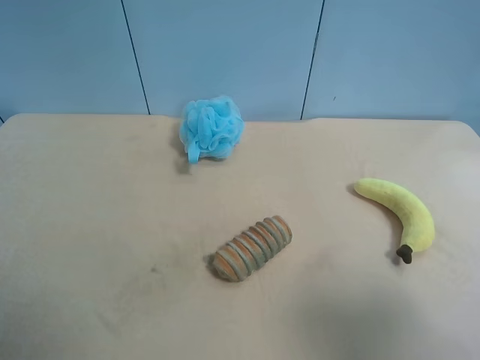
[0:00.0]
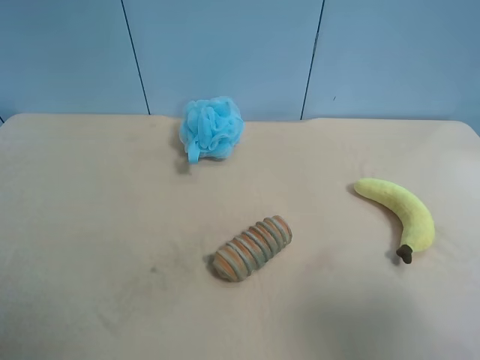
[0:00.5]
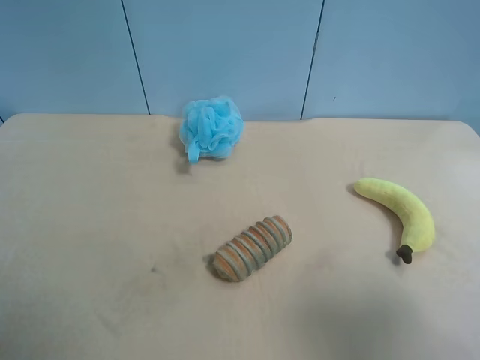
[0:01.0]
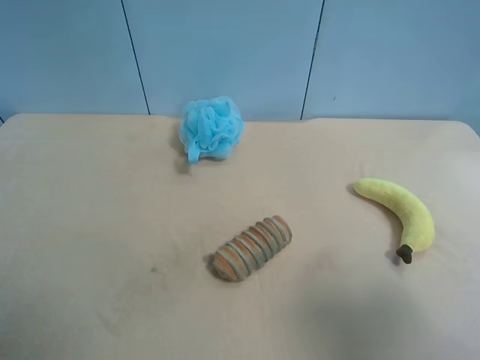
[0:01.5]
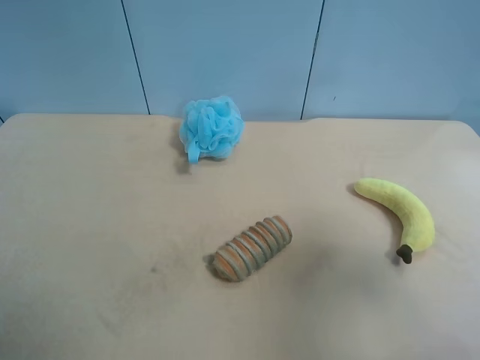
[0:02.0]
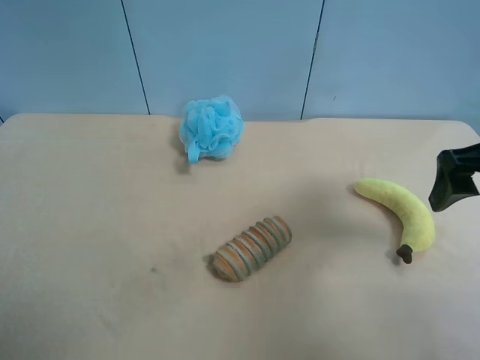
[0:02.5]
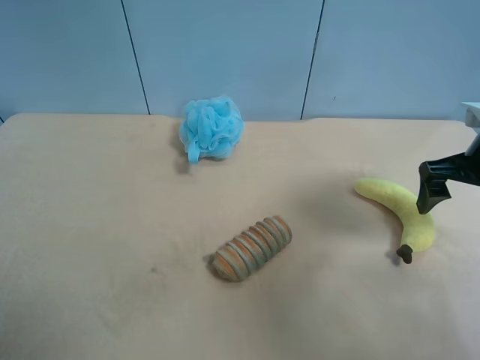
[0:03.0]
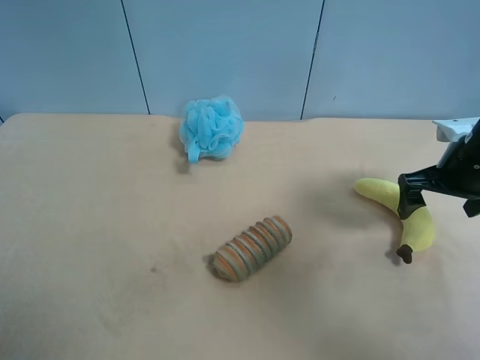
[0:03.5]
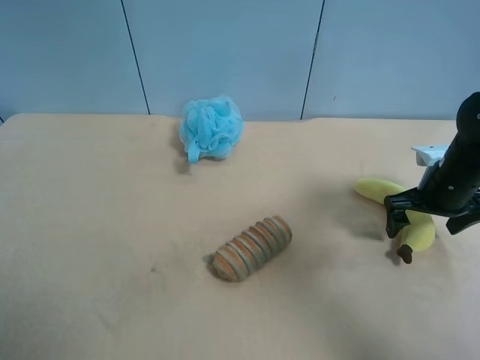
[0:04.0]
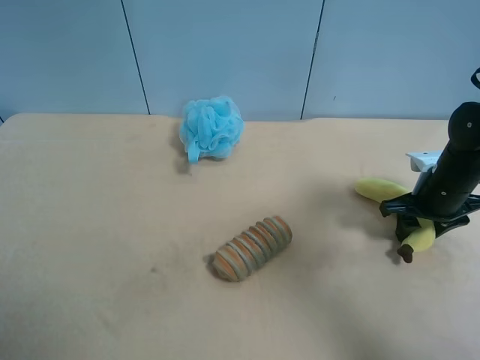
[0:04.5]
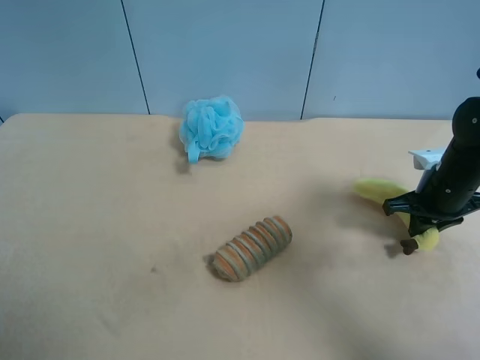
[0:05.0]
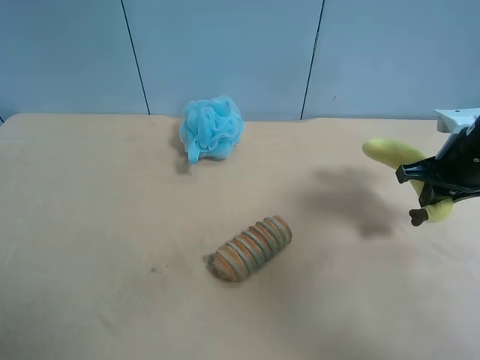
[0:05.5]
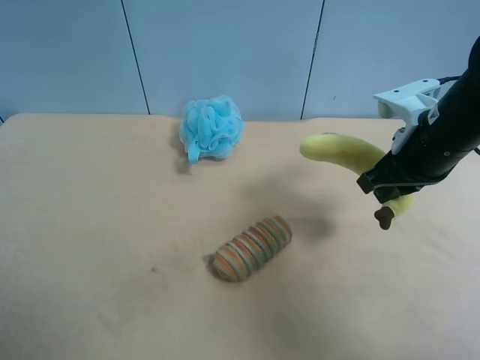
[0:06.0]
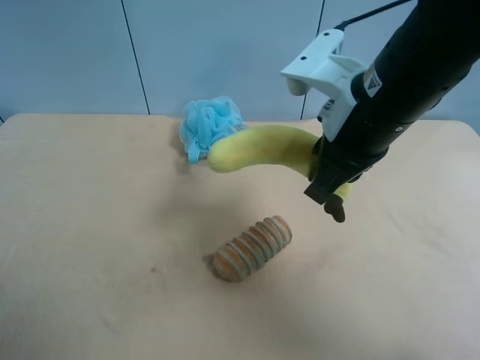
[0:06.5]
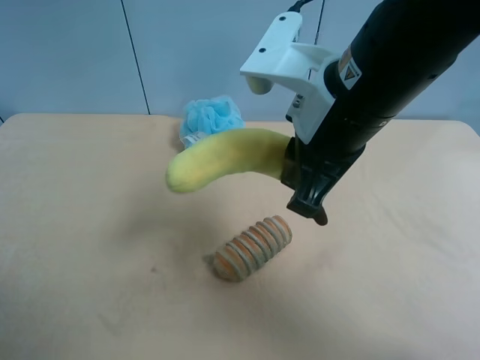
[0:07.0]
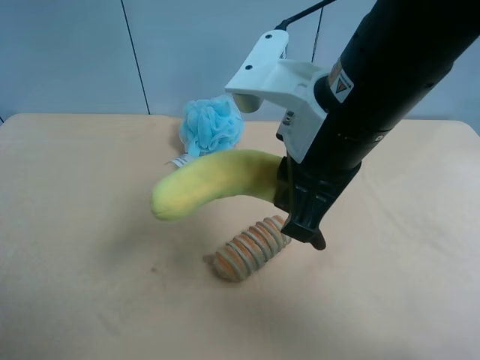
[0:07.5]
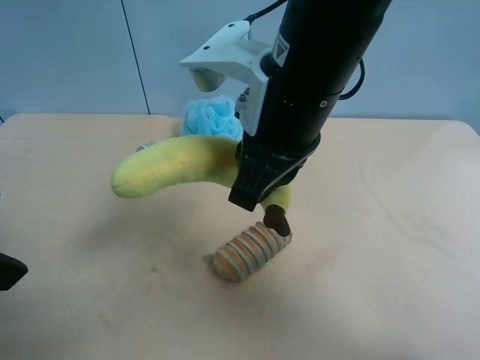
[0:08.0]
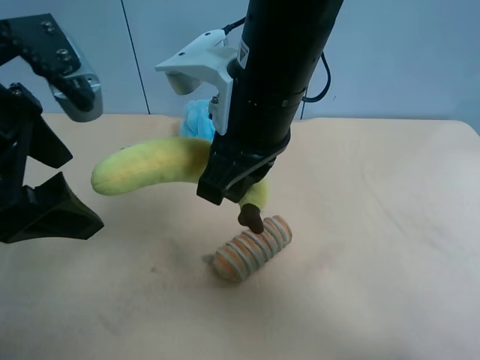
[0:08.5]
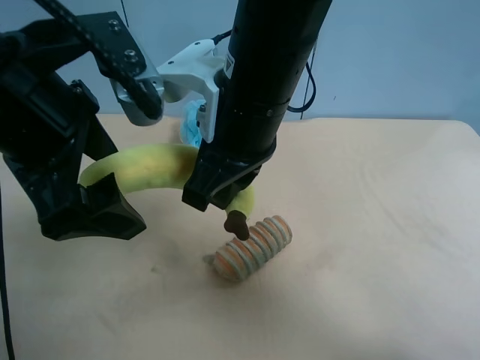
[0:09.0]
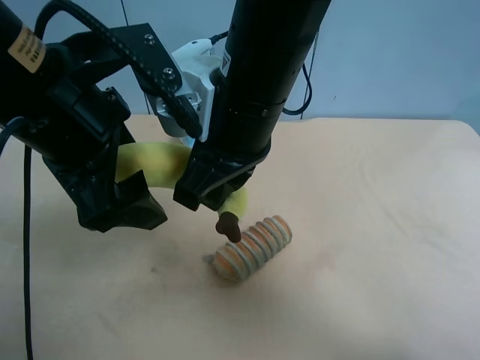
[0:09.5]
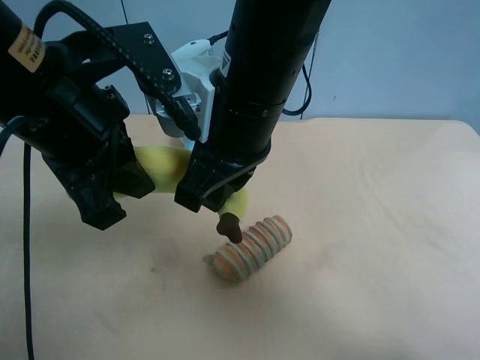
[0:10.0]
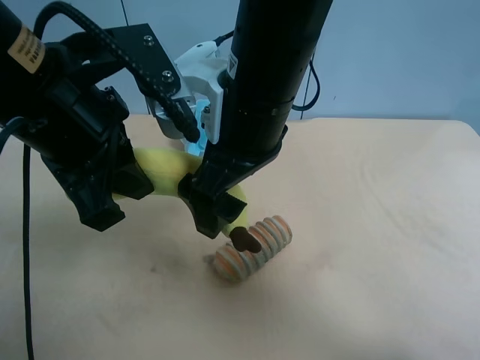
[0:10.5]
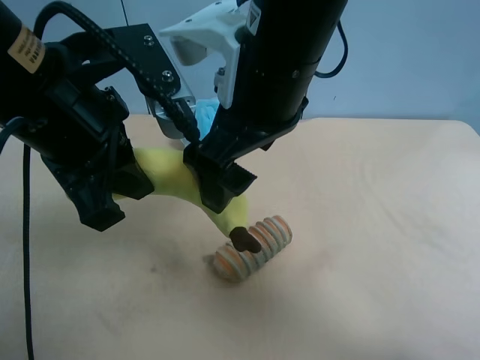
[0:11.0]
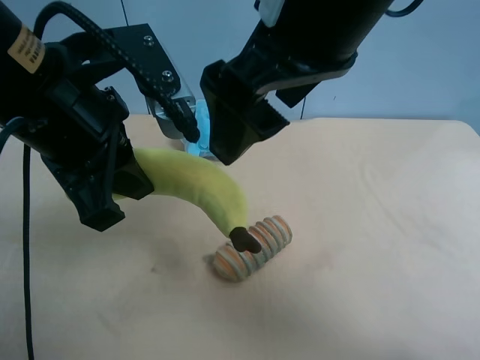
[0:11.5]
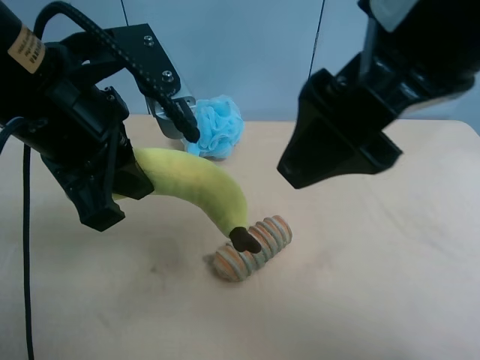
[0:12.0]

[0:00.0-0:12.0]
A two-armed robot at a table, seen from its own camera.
Task of the whole recording: use the right gripper to pick up the item and transfer it from the right gripper to the left gripper.
0:00.0 to 0:02.0: The right gripper moves forward, about 10 cm.
0:02.0 to 0:04.0: The right gripper heads forward and downward, covering about 30 cm.
0:04.0 to 0:06.0: The right gripper moves upward and to the left, roughly 15 cm, and closes its fingers.
0:06.0 to 0:08.0: The left gripper moves forward and to the right, approximately 15 cm. The right gripper goes some 20 cm to the left and upward.
0:08.0 to 0:10.0: The left gripper moves to the right and forward, some 15 cm, and closes.
0:10.0 to 0:12.0: The right gripper travels to the right, upward and backward by some 15 cm, and opens up.

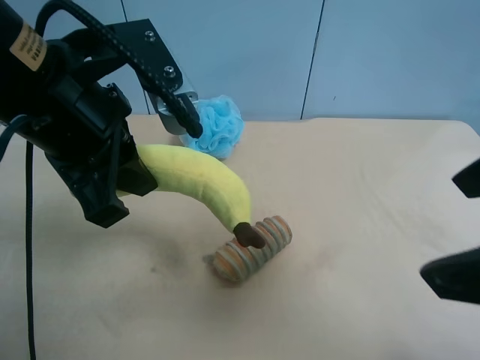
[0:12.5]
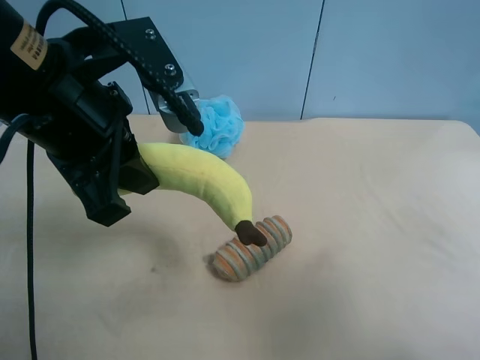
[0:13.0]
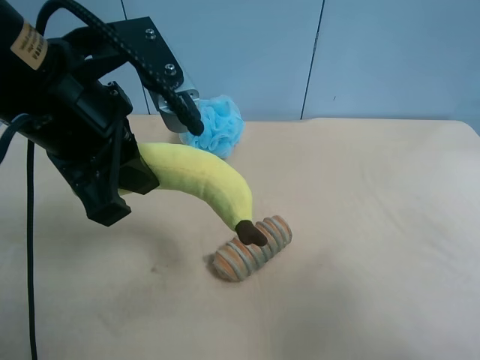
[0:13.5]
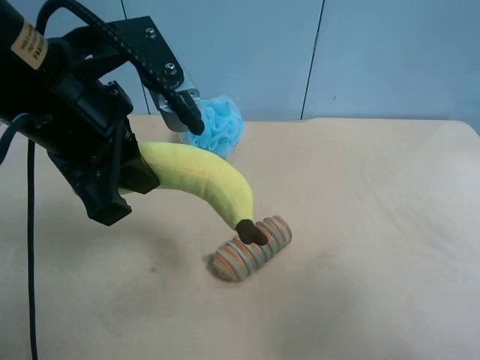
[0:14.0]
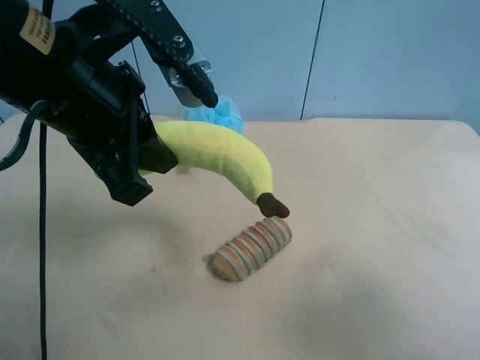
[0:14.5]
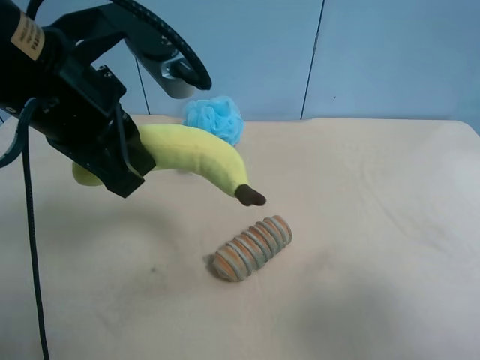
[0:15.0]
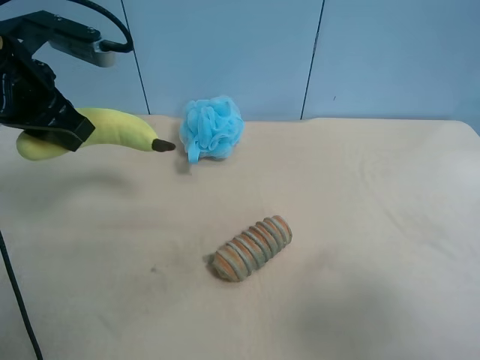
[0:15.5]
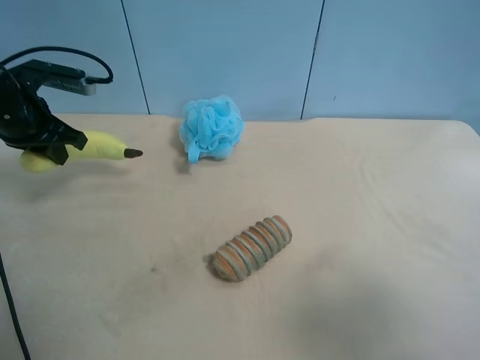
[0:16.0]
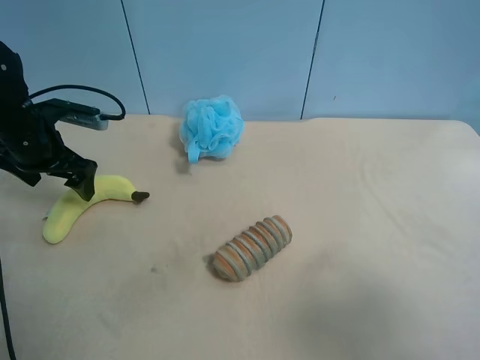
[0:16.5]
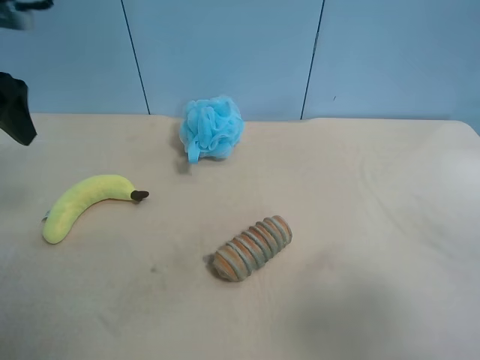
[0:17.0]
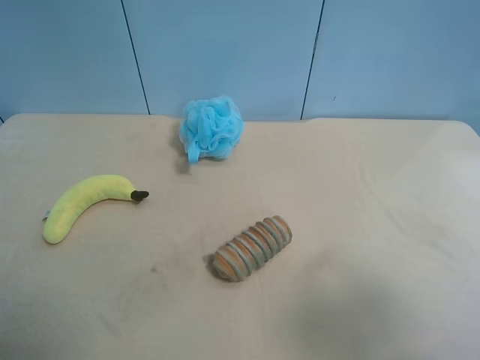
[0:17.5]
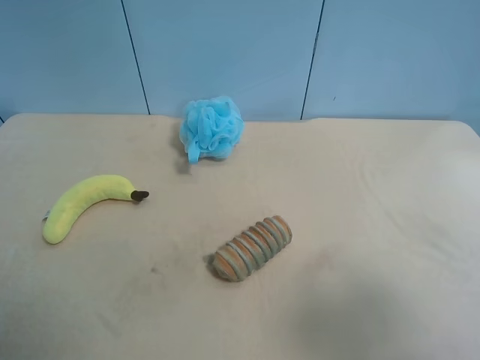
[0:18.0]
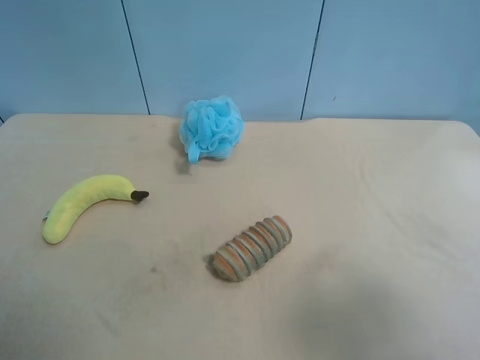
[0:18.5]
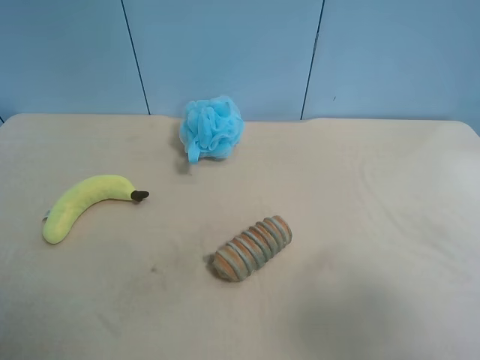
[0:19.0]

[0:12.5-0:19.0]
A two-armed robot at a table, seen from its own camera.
Task of the whole recording: use the right gripper to pick up the item and transfer it from the right gripper to the left gripper.
0:12.5 to 0:14.5: The right gripper travels to the right, backward and downward by roughly 15 cm.
0:14.5 to 0:17.0: The left gripper goes some 20 cm to the left and forward, and opens.
0:17.0 to 0:19.0: The left gripper heads backward, covering approximately 25 cm.

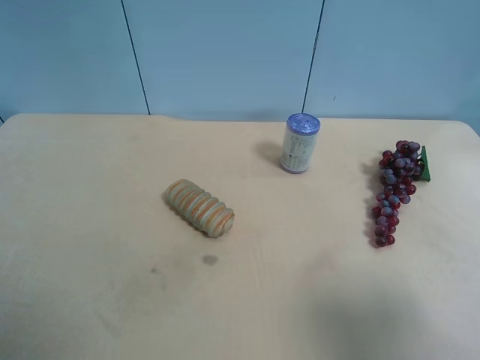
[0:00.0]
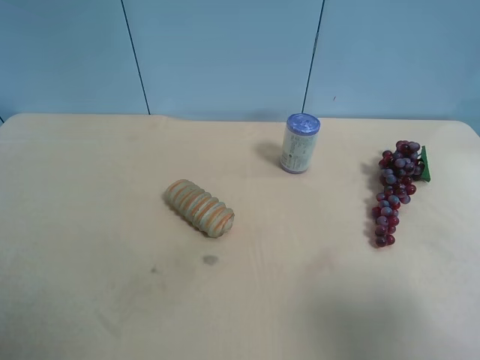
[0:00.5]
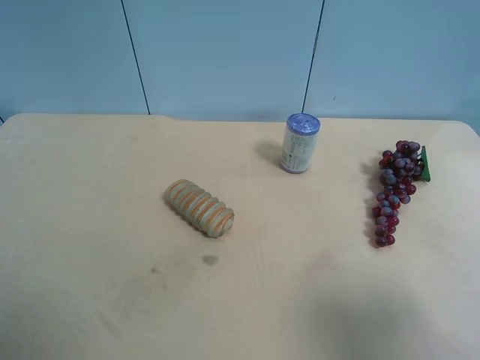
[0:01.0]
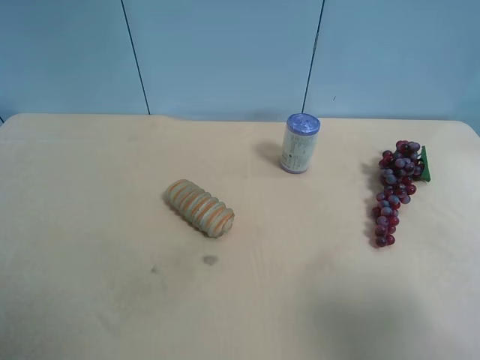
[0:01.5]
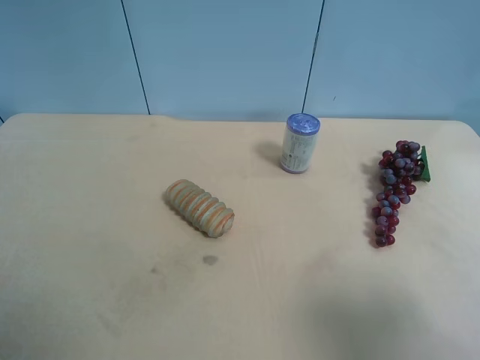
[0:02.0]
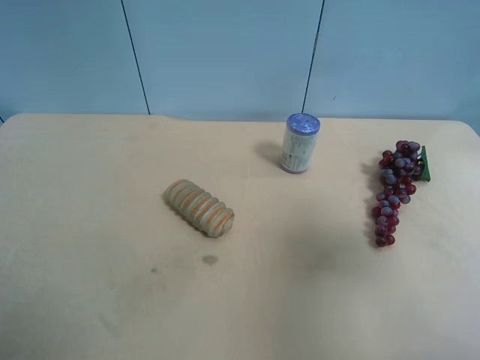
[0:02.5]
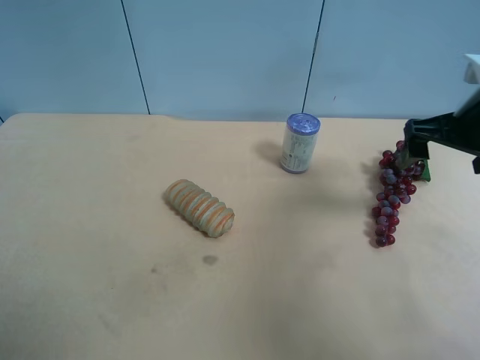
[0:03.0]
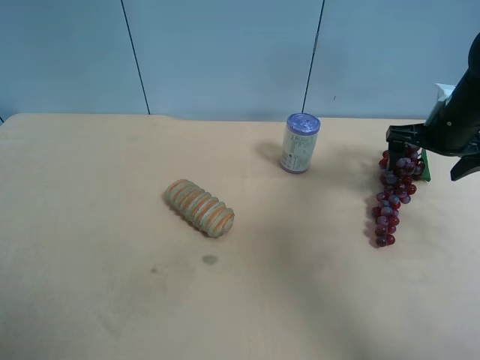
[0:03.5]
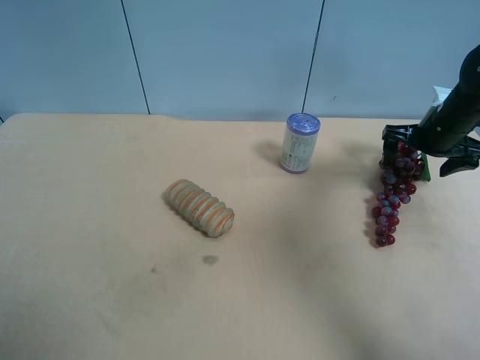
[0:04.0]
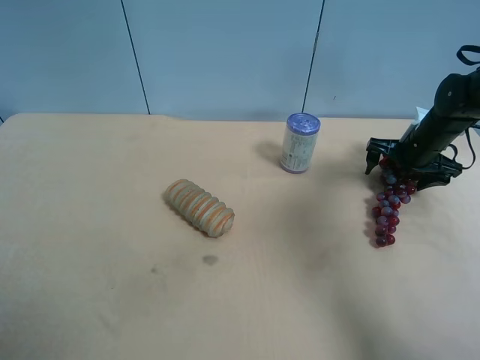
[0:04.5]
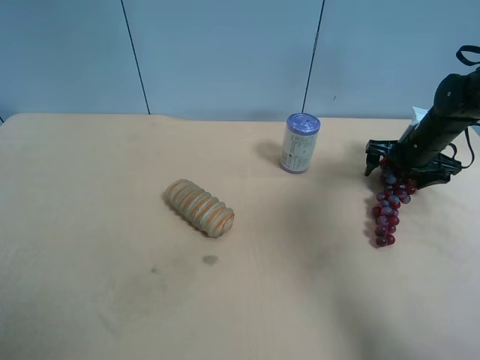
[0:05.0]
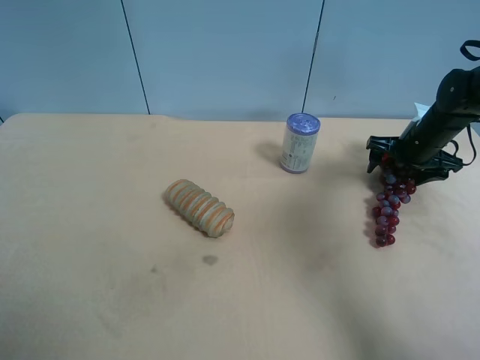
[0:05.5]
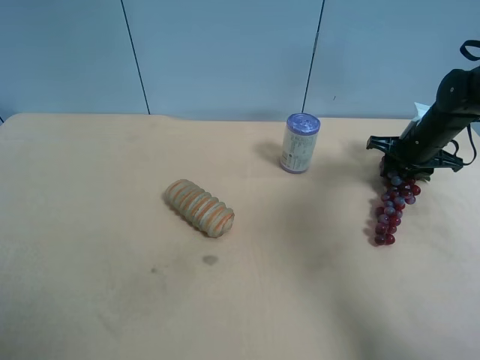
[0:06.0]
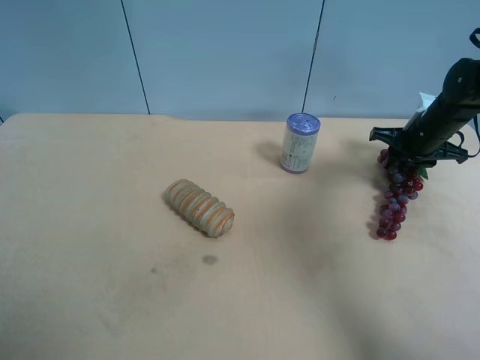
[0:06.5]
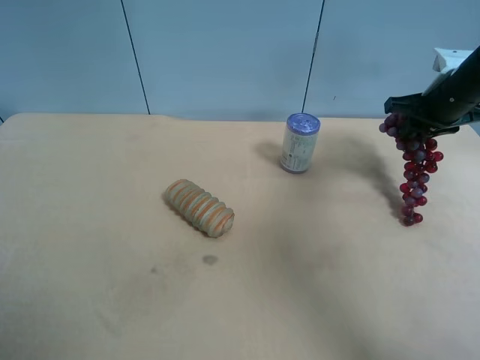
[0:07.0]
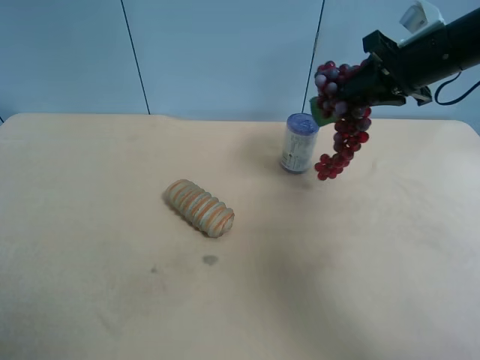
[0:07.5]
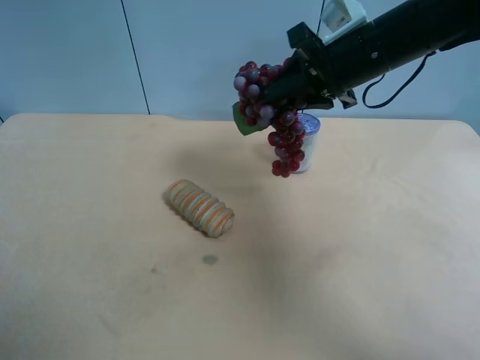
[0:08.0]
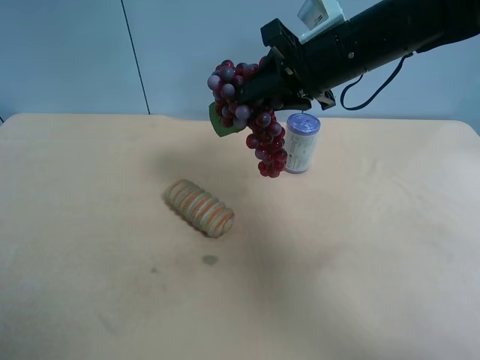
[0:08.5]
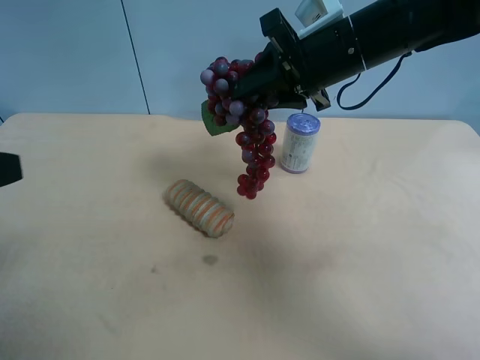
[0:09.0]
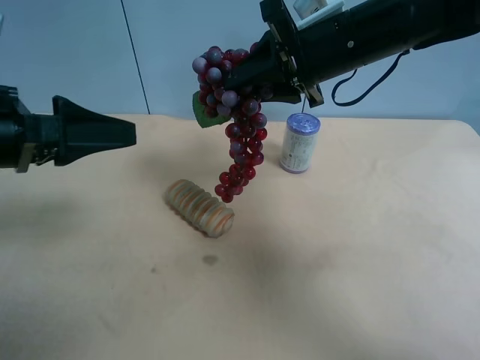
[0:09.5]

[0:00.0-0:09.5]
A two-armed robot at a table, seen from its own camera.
Task of the whole recording: use the right gripper to pick up the item and transfer it from the right gripper to the left gripper.
0:00.0 to 0:02.0: Neither gripper changes place.
0:02.0 to 0:04.0: The right gripper goes approximately 40 cm forward.
0:04.0 to 0:05.5: The grippers stay close to where they were, moving slightly.
0:05.5 to 0:07.5: The right gripper travels upward and to the left by roughly 15 cm, and closes its fingers.
0:07.5 to 0:09.5: The right gripper shifts approximately 15 cm to the left. Meanwhile the left gripper heads forward and to the right, covering approximately 20 cm.
